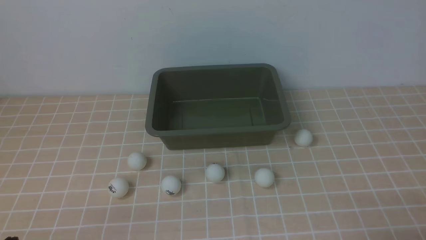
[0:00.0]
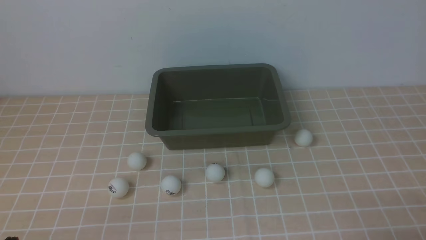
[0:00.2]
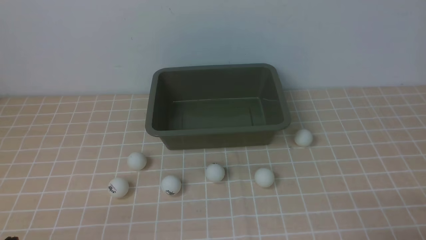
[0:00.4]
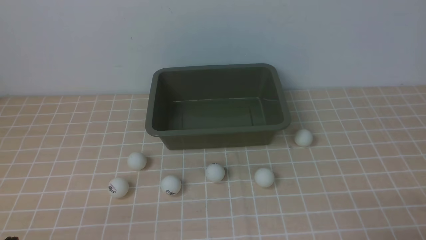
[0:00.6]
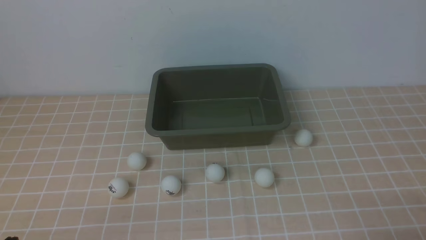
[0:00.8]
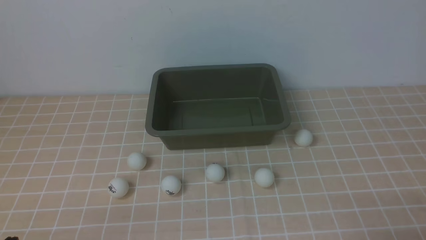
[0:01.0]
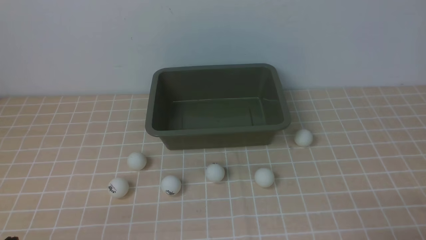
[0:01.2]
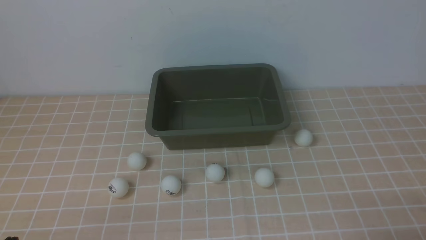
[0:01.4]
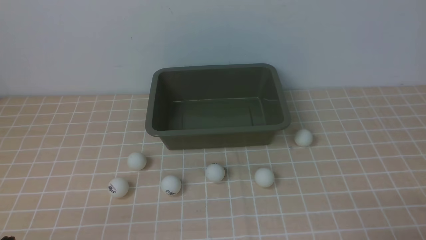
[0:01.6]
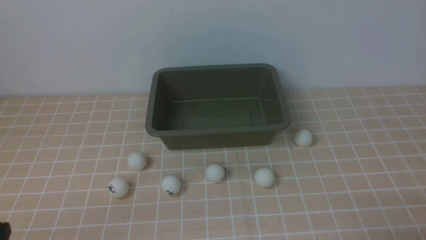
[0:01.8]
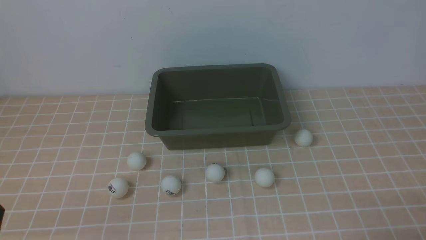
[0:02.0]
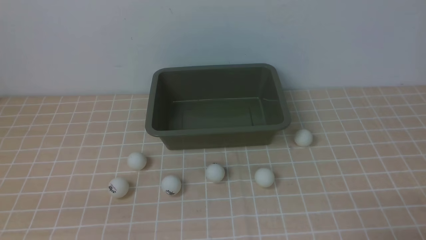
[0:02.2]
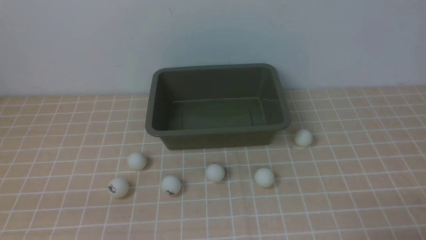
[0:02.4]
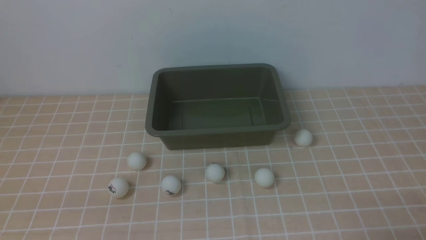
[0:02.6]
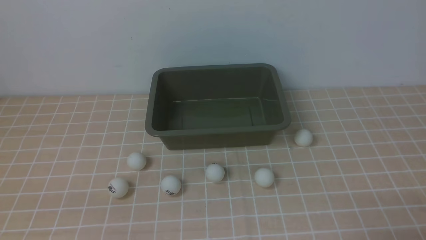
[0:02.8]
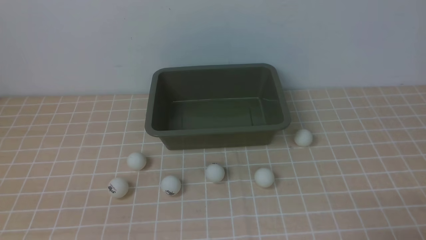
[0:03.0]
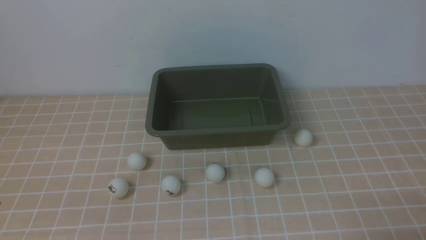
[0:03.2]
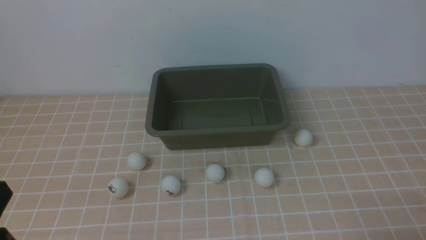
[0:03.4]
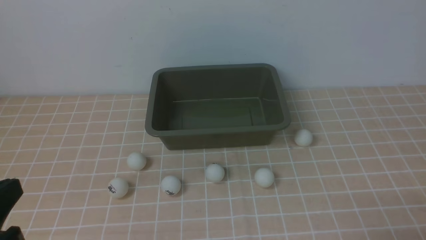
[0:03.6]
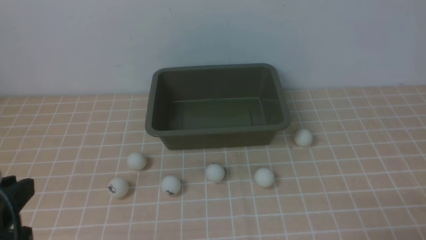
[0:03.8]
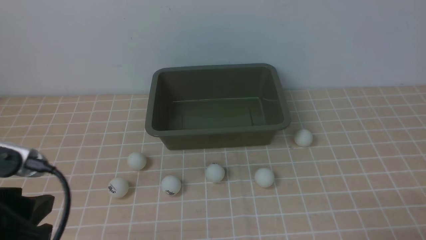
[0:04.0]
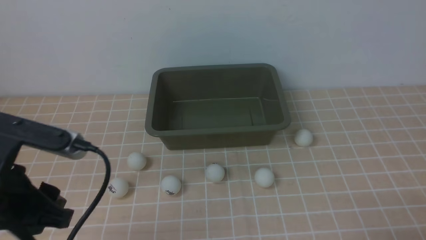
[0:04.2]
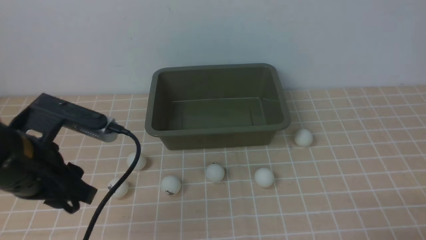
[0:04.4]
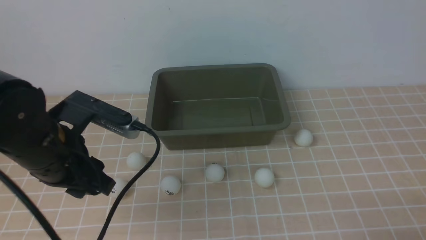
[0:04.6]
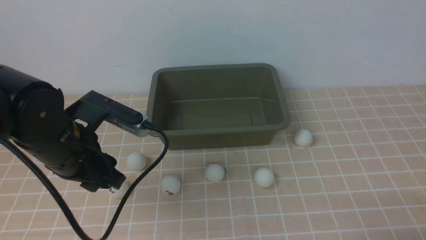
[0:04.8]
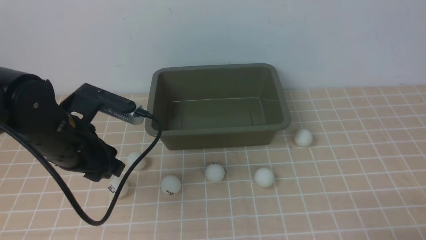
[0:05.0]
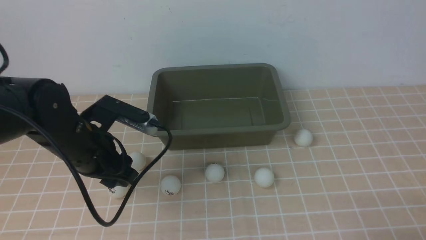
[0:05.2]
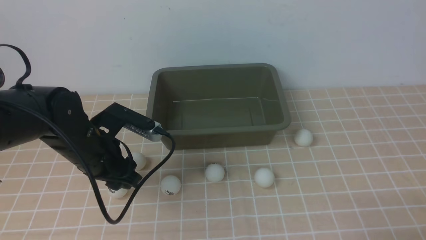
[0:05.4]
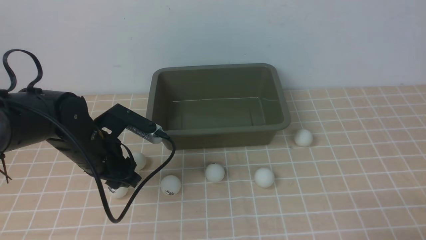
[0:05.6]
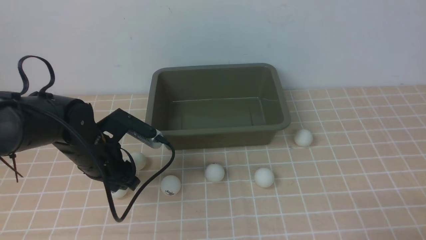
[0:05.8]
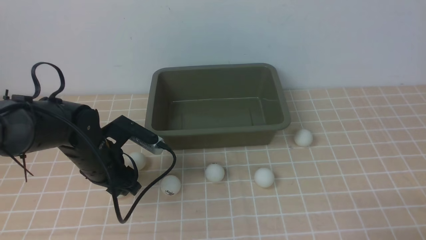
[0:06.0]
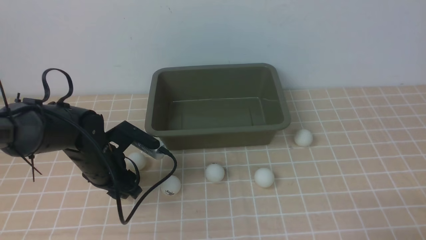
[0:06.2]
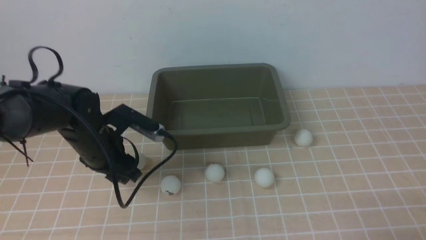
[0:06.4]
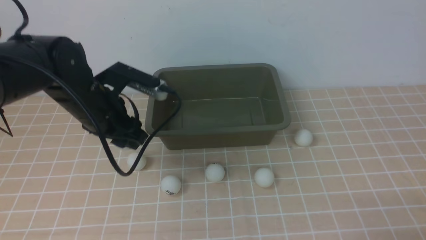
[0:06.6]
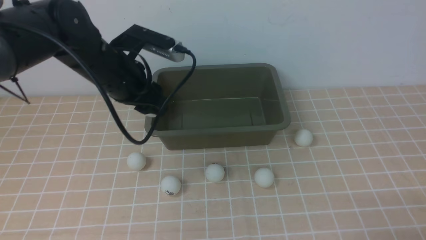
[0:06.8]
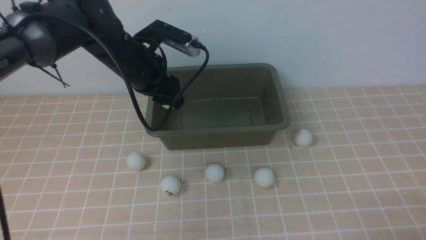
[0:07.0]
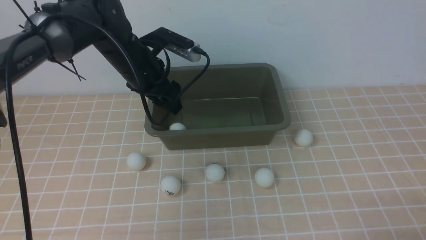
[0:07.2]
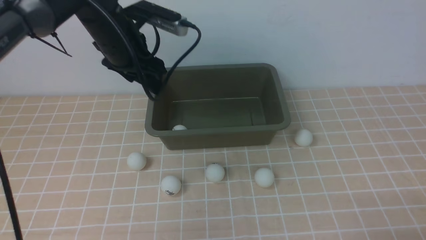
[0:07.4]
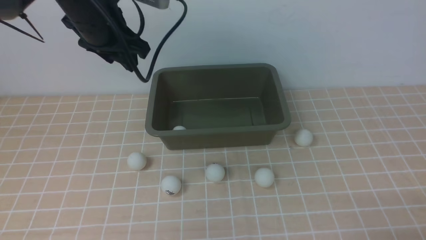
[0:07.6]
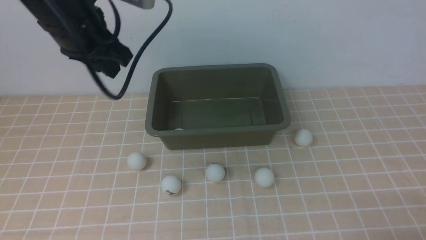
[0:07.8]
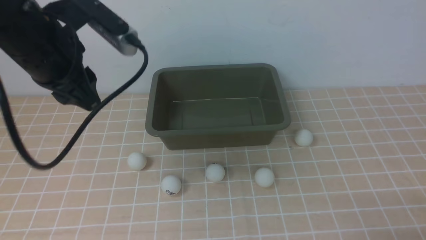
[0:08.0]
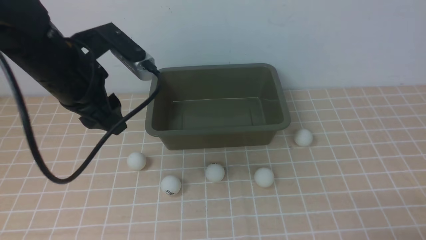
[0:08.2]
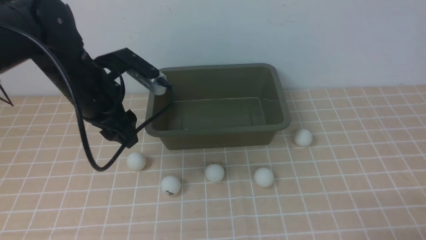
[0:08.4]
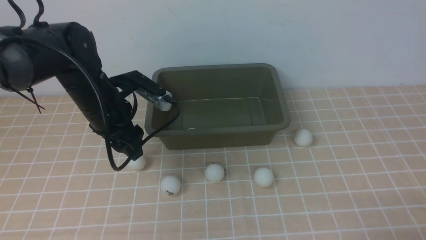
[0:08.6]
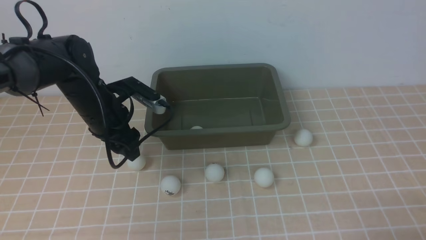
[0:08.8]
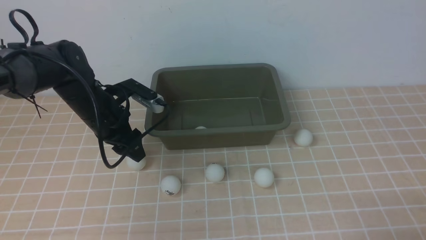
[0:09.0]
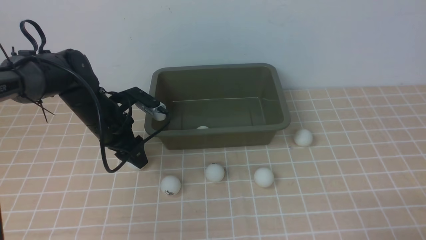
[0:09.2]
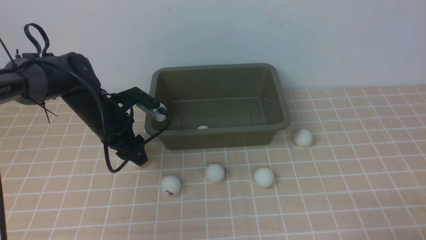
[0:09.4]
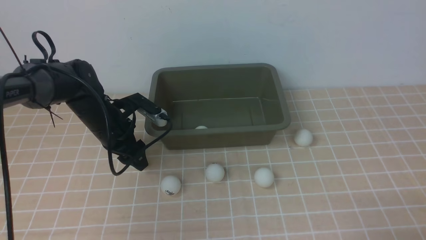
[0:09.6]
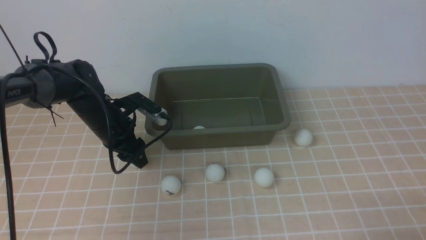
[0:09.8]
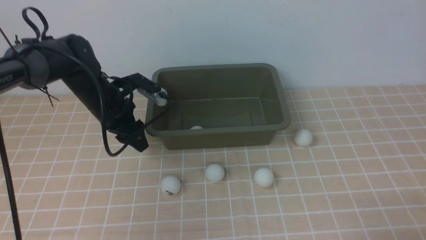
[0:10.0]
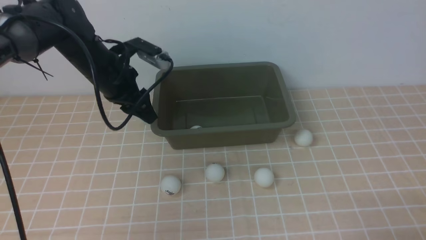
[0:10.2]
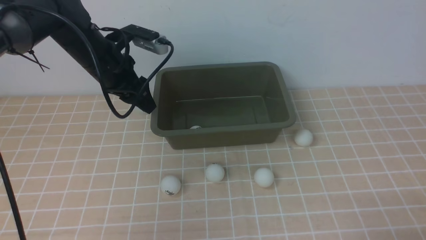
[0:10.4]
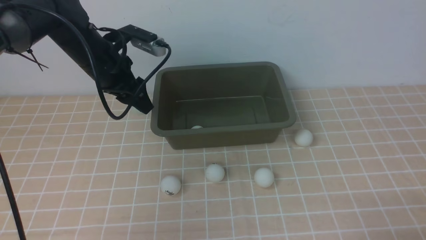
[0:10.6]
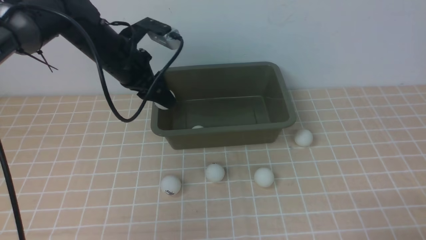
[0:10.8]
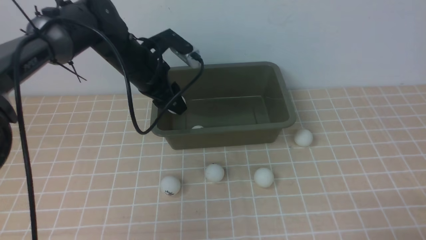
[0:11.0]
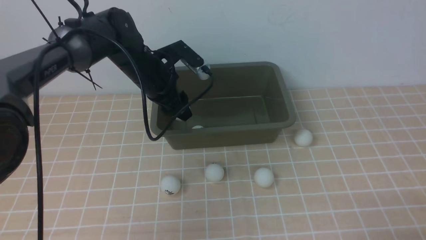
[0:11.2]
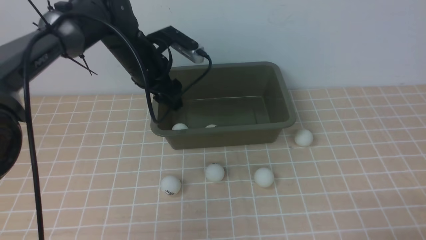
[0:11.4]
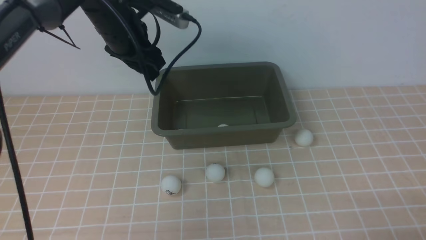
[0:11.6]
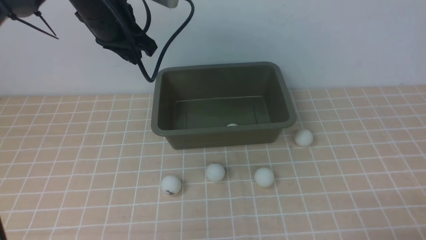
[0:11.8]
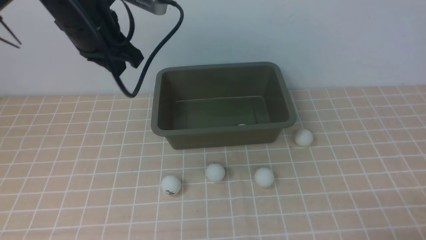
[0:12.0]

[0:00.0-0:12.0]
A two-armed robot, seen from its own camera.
Step, 0:00.0 to 0:06.6: use the left arm to clamp the table tennis ball closest to it.
Step, 0:06.8 to 0:07.6: use the left arm to put the table tennis ball into the box.
Step, 0:08.0 to 0:10.2: use the left arm to clamp the table tennis ball closest to it.
Step, 0:10.4 to 0:11.6: use the left arm to put the table tennis ball into the box.
0:00.0 to 0:01.6: Both grippers stay put.
0:03.0 to 0:04.4: The left gripper moves forward and upward, some 15 cm, and opens up.
0:04.4 to 0:06.0: The left gripper goes approximately 15 cm downward and forward.
0:06.0 to 0:07.6: The left gripper is displaced upward by approximately 20 cm.
0:07.6 to 0:09.0: The left gripper travels downward by roughly 15 cm.
0:09.0 to 0:10.4: The left gripper moves upward, about 10 cm.
0:10.4 to 0:12.0: The left gripper travels upward and backward by some 10 cm, and closes its fingers.

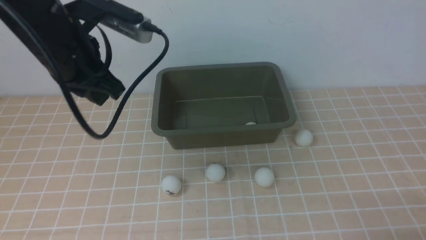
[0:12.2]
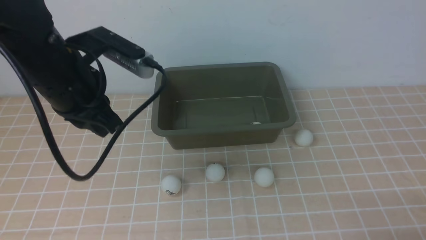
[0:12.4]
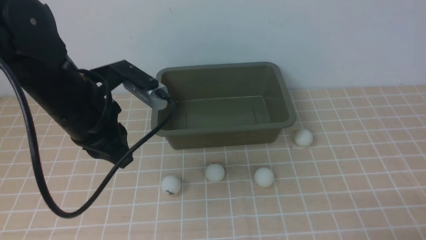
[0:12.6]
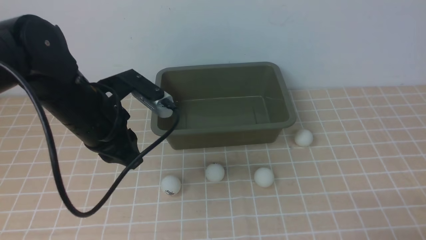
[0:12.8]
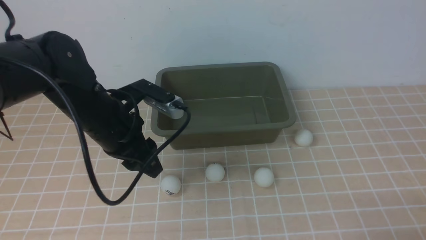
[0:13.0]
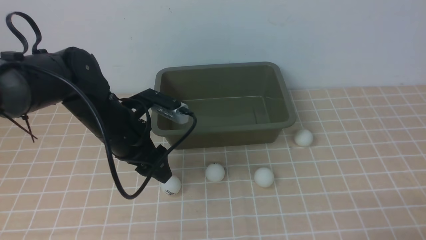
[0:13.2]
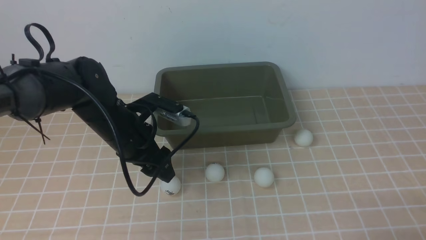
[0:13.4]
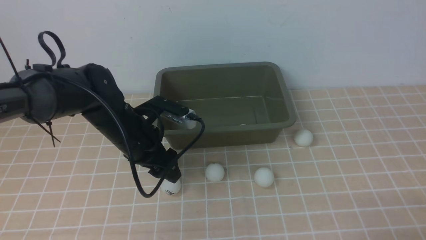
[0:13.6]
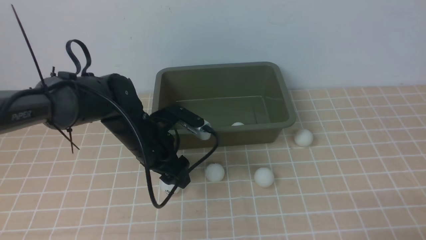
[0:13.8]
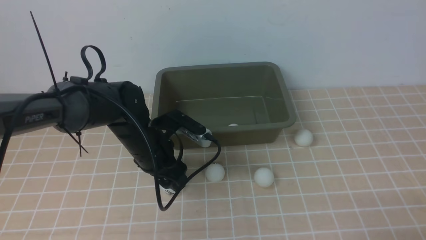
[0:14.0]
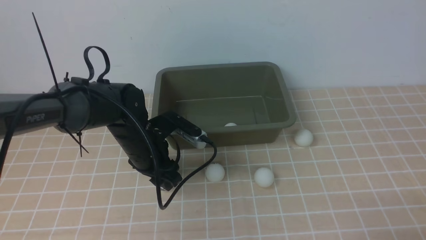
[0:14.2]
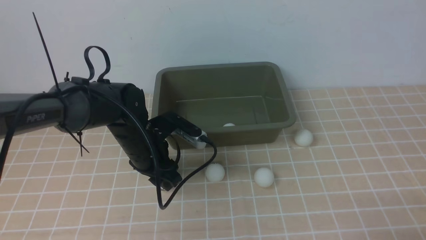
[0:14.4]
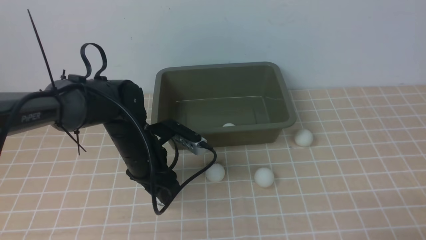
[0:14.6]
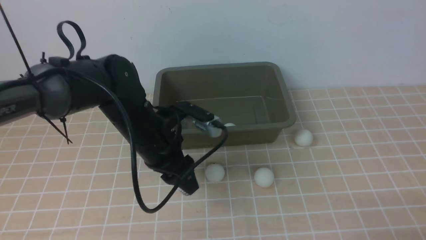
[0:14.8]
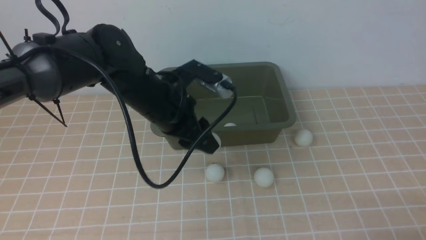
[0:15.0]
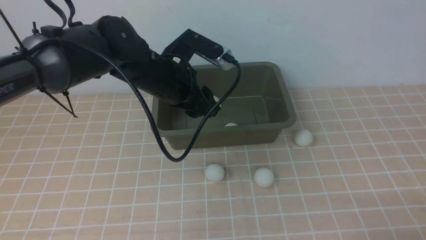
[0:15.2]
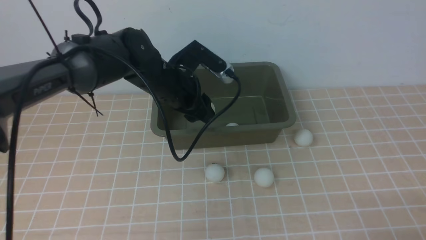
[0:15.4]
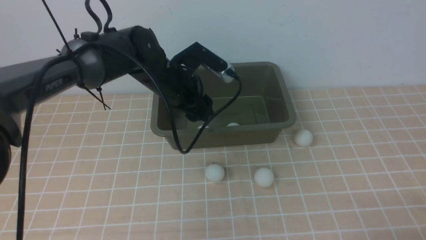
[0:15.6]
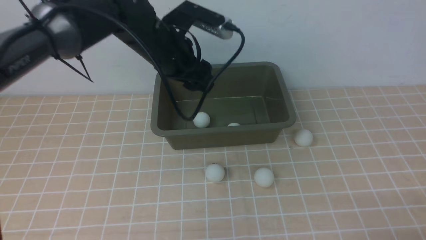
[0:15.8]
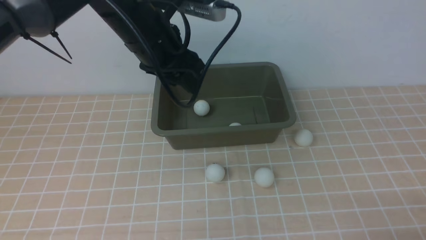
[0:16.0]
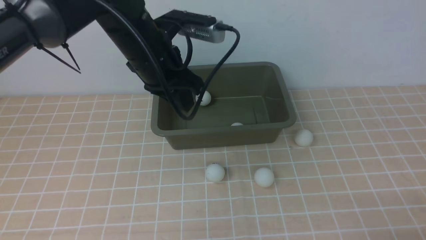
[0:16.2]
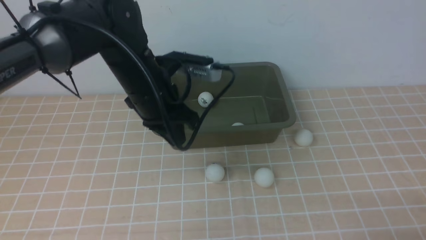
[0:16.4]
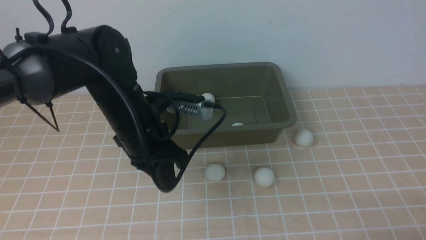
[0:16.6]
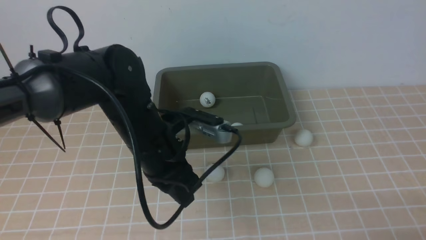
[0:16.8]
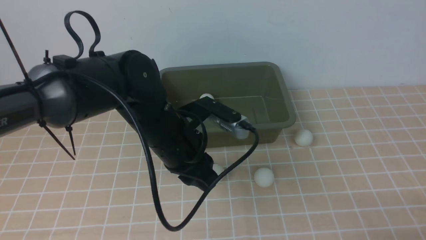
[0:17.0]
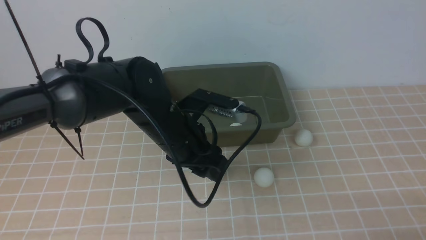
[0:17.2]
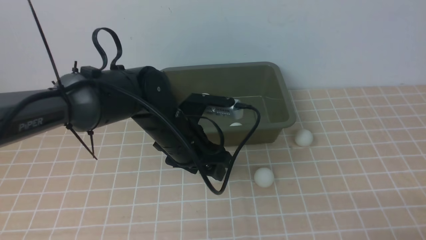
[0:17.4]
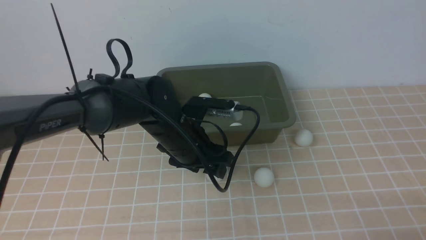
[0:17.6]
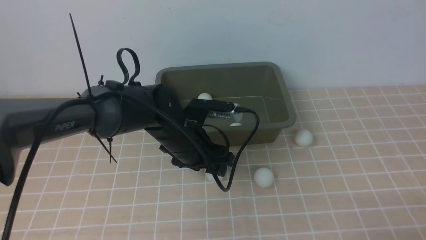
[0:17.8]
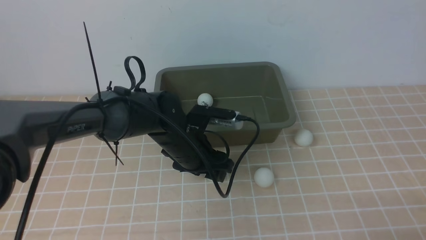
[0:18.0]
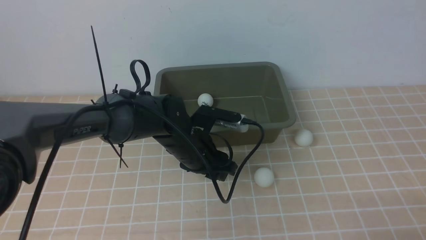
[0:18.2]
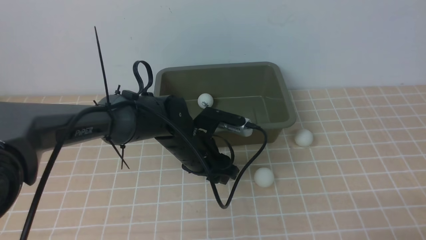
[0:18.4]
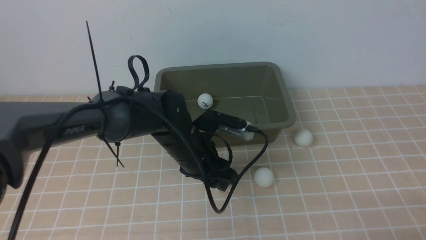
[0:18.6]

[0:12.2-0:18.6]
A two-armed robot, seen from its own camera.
Step, 0:12.2 to 0:14.8: use the left arm to clamp the table tennis ball closest to it.
Step, 0:15.0 to 0:16.0: use the left arm to put the table tennis ball into the box.
Step, 0:16.2 to 0:18.6: use the left arm to clamp the table tennis ball closest to it.
0:12.2 to 0:13.8: The left gripper is displaced downward by about 20 cm, and opens its fingers.
0:13.8 to 0:15.4: The left gripper travels upward and forward by about 10 cm.
0:15.4 to 0:17.0: The left gripper heads backward, covering roughly 10 cm, and closes up.
